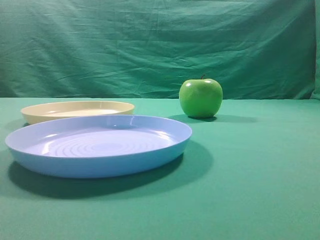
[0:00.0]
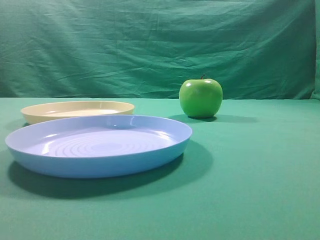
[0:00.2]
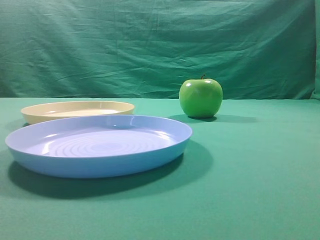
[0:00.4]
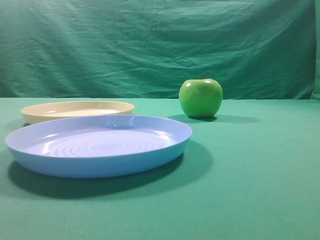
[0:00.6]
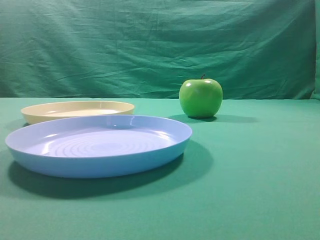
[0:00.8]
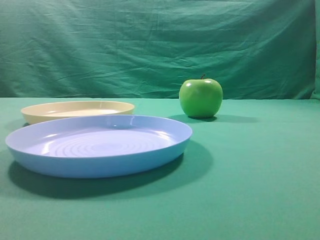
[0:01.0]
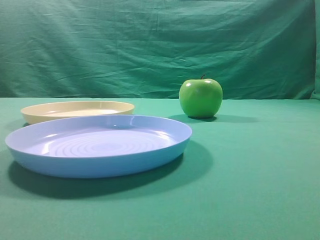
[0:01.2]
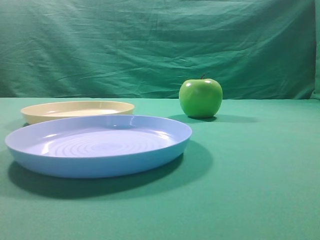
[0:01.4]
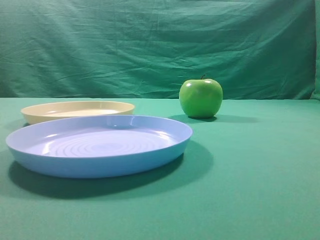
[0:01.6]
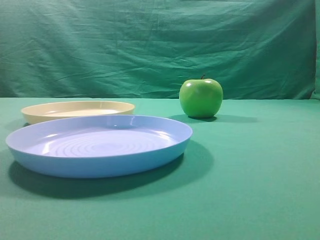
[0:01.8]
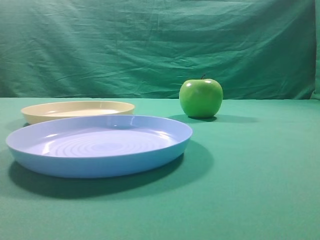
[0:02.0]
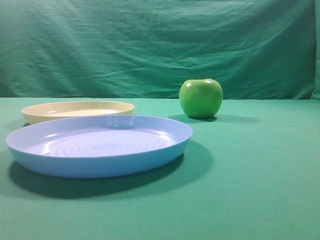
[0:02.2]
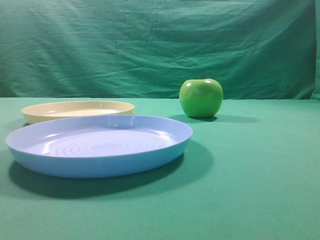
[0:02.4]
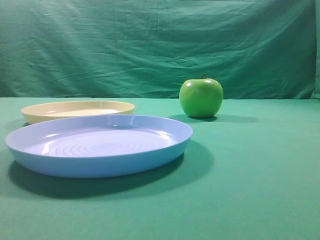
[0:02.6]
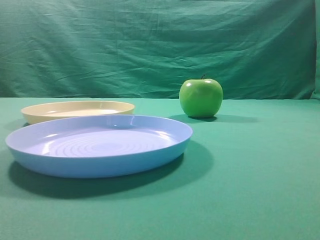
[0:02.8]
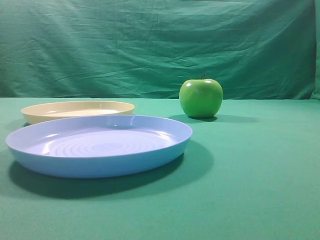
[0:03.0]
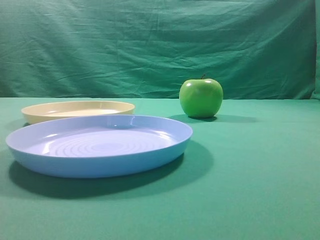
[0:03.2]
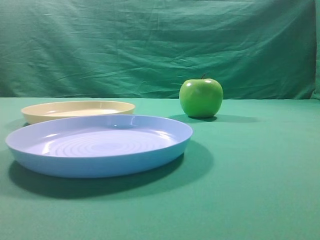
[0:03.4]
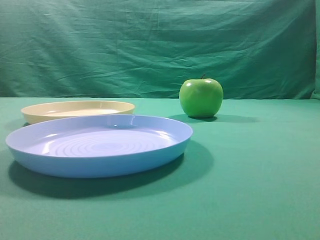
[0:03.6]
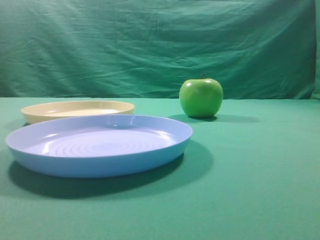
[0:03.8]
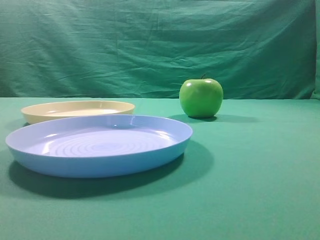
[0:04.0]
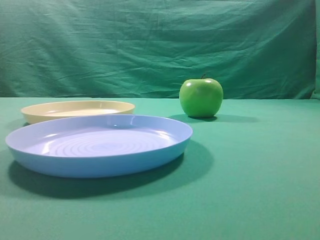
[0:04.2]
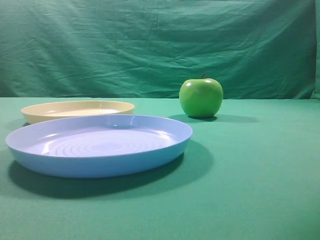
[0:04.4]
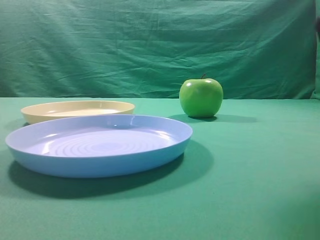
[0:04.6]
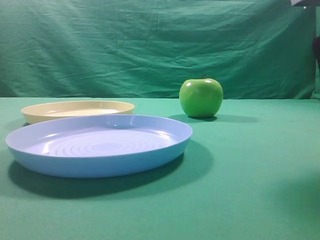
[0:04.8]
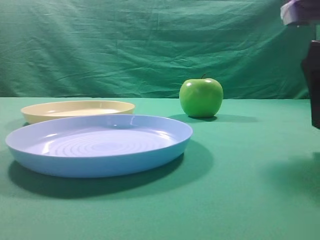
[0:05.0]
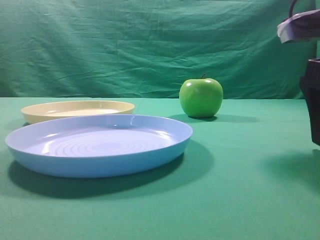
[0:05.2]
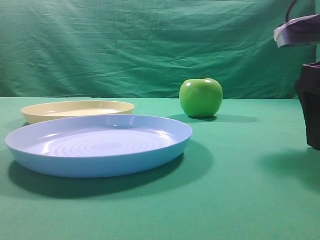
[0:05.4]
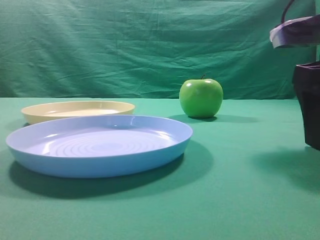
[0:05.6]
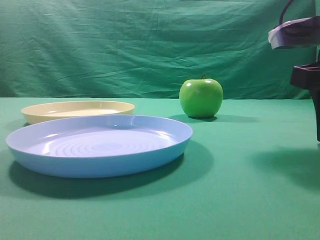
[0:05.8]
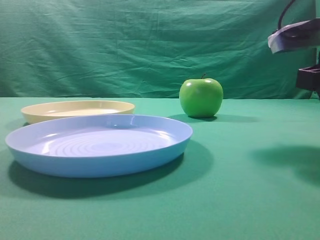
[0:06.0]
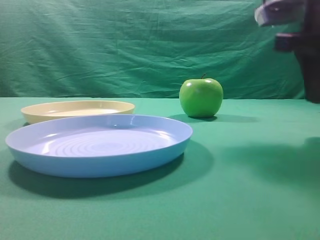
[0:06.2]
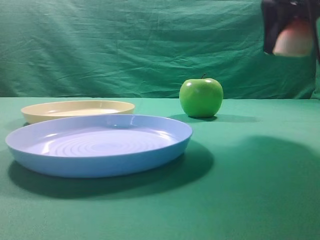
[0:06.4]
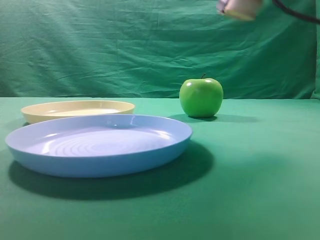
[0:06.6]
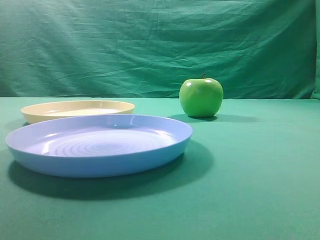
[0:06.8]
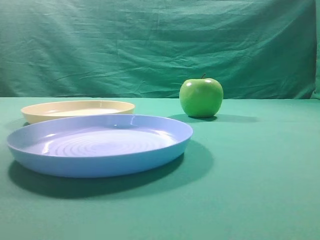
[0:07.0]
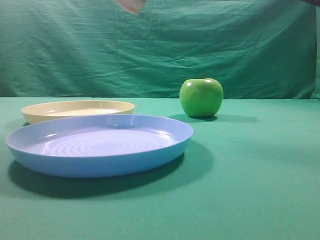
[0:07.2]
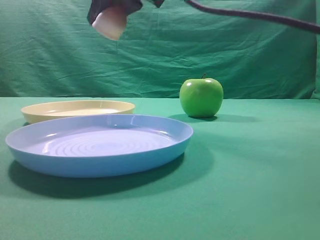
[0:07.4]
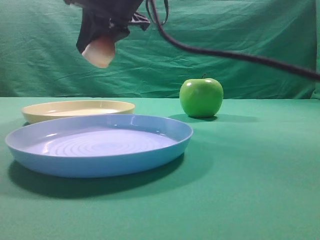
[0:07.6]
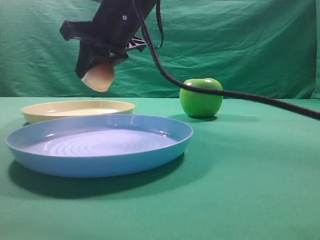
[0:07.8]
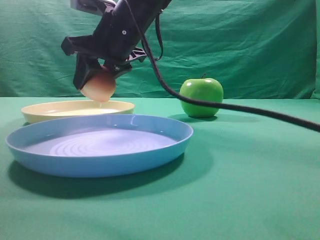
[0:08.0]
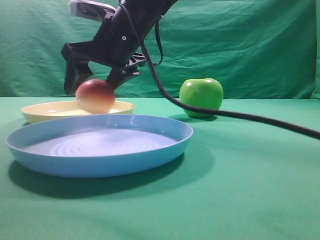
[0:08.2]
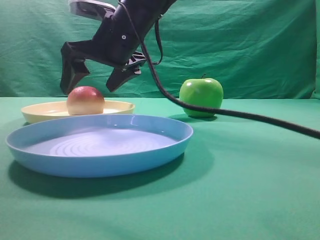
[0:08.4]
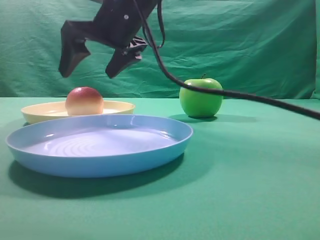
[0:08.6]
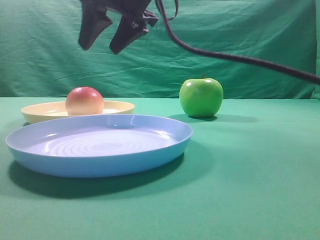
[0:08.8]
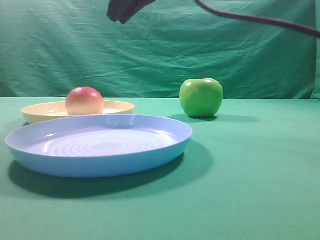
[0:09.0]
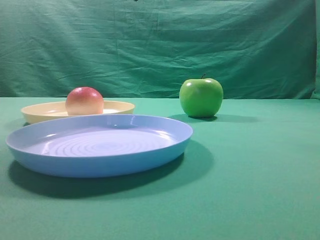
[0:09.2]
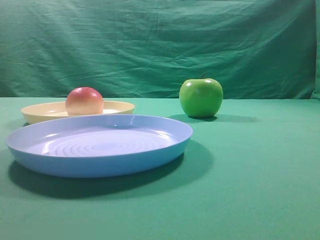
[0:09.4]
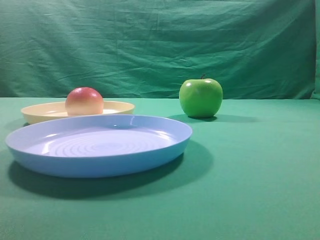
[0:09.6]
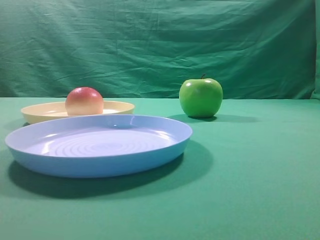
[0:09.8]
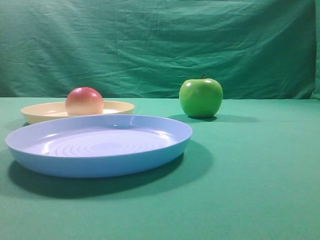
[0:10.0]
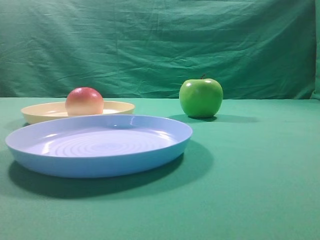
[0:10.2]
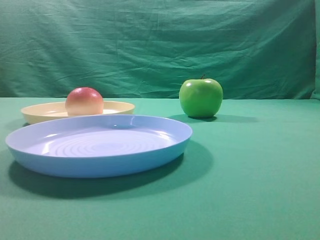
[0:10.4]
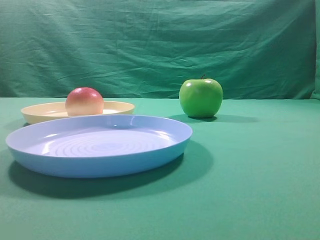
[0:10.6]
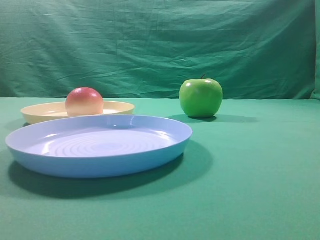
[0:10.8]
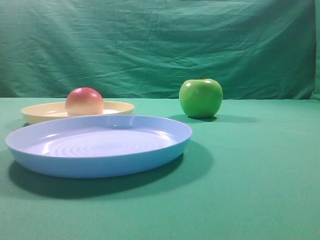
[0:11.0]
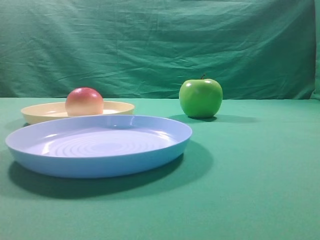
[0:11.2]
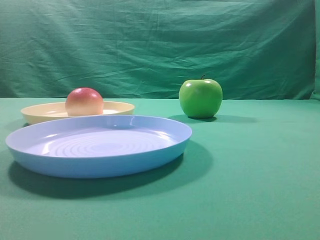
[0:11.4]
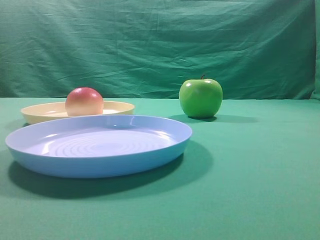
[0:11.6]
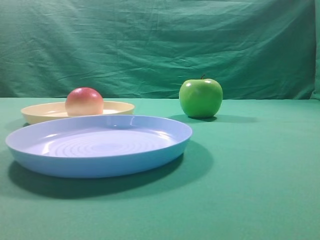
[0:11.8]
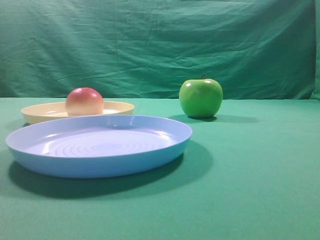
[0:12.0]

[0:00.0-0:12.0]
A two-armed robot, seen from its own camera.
Step, 0:06.4 to 0:08.6: Place the picked object on the yellow plate.

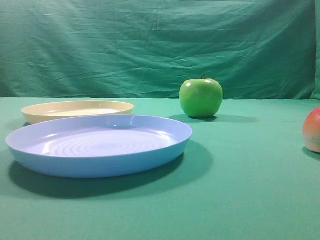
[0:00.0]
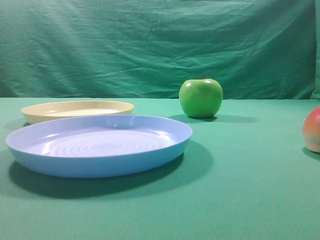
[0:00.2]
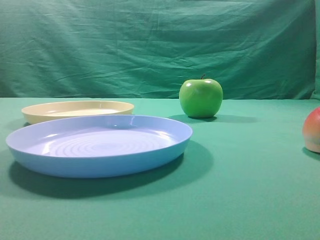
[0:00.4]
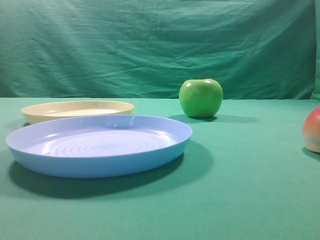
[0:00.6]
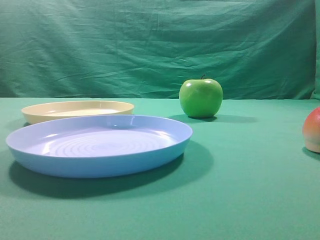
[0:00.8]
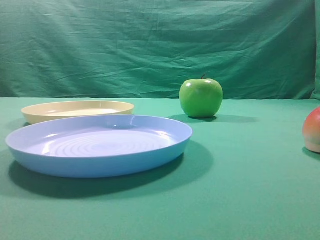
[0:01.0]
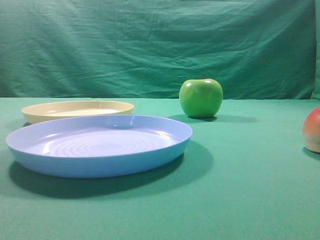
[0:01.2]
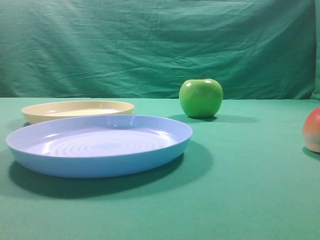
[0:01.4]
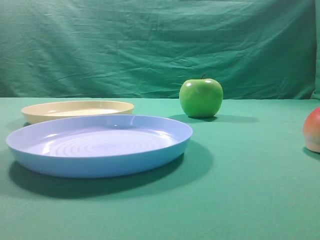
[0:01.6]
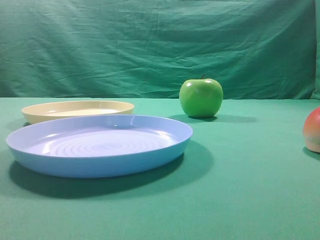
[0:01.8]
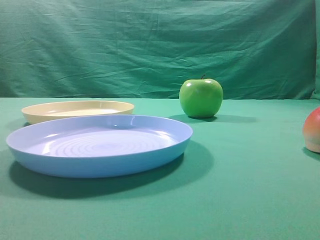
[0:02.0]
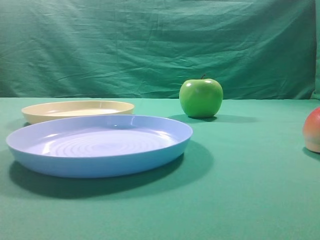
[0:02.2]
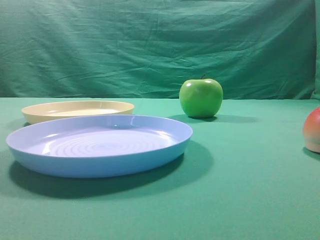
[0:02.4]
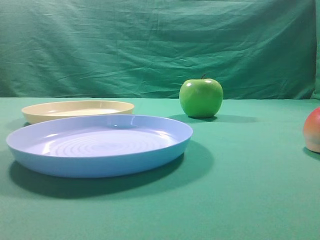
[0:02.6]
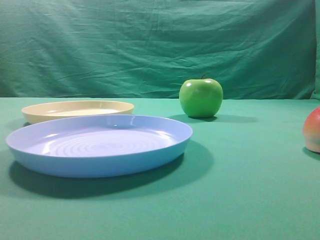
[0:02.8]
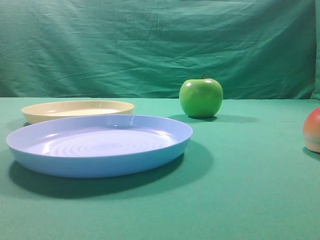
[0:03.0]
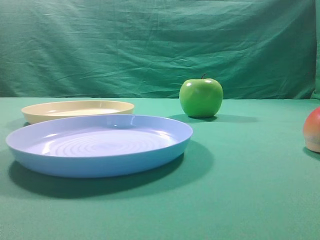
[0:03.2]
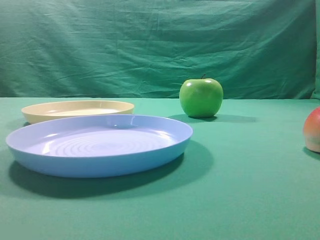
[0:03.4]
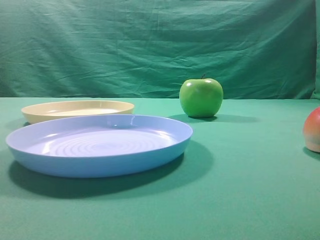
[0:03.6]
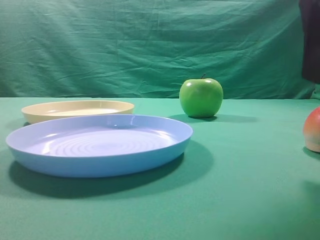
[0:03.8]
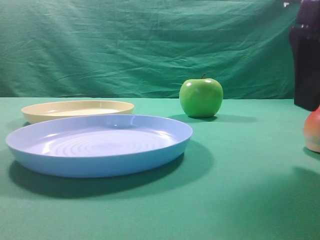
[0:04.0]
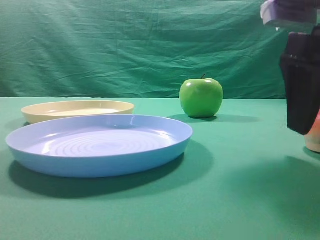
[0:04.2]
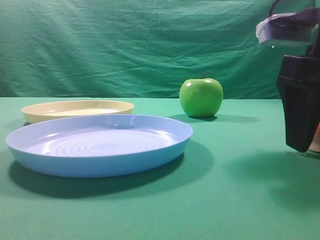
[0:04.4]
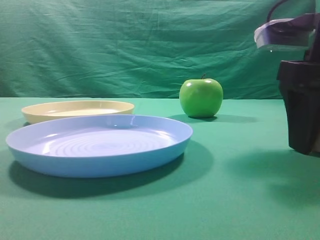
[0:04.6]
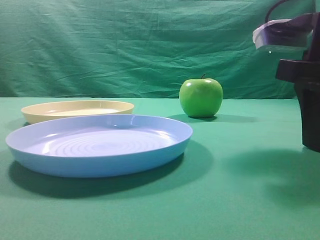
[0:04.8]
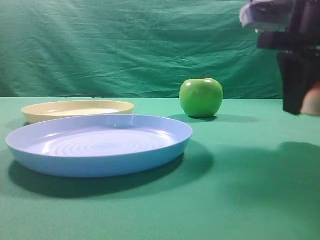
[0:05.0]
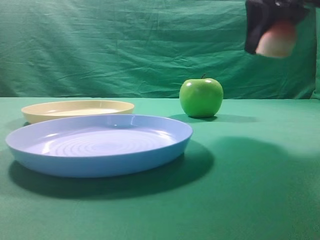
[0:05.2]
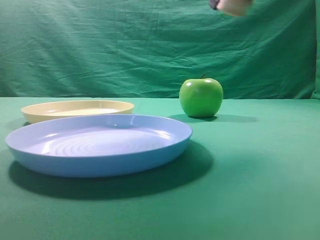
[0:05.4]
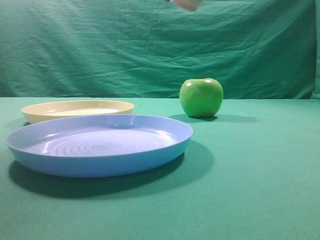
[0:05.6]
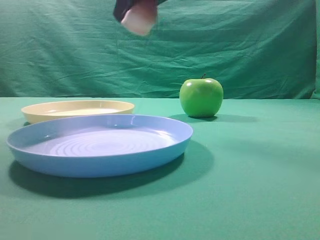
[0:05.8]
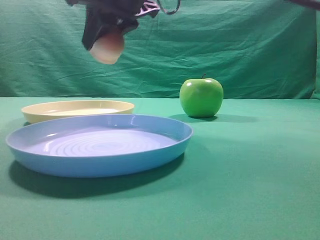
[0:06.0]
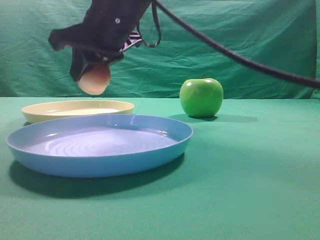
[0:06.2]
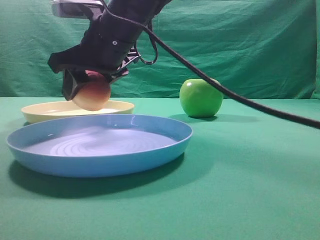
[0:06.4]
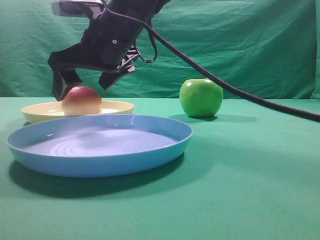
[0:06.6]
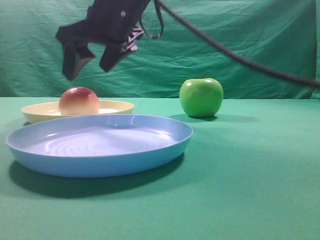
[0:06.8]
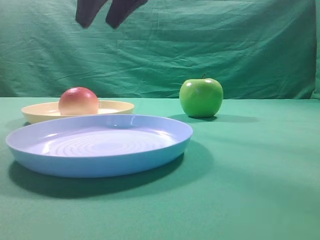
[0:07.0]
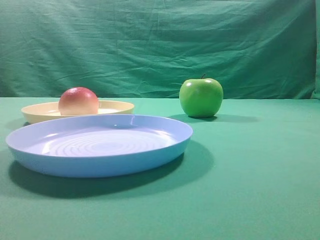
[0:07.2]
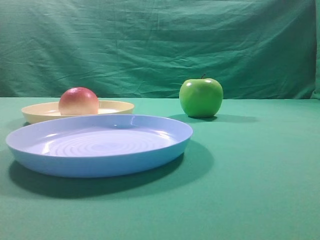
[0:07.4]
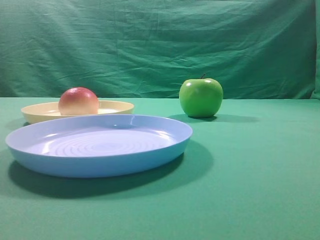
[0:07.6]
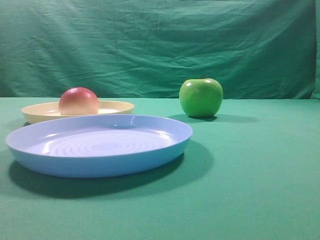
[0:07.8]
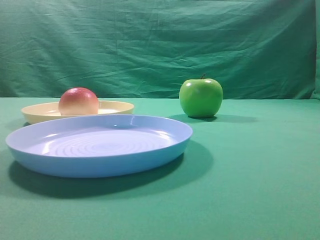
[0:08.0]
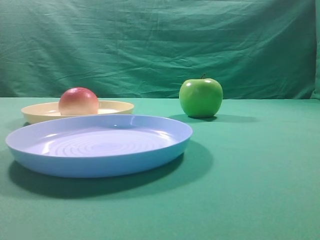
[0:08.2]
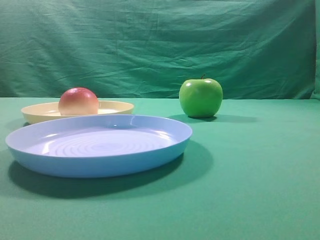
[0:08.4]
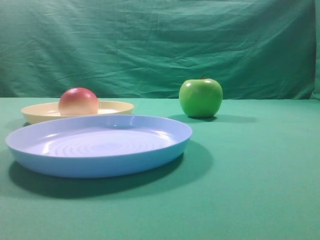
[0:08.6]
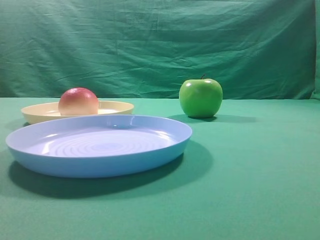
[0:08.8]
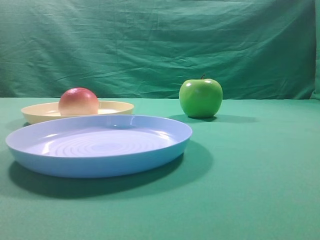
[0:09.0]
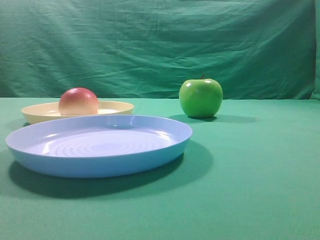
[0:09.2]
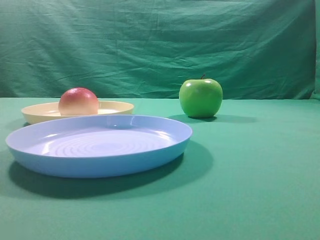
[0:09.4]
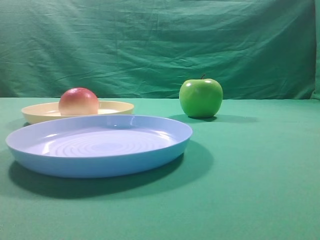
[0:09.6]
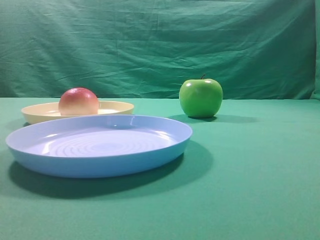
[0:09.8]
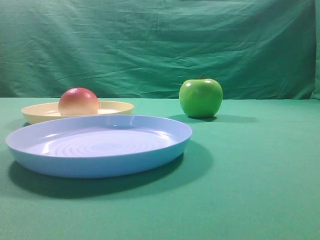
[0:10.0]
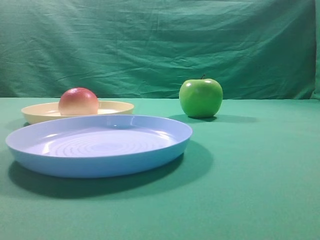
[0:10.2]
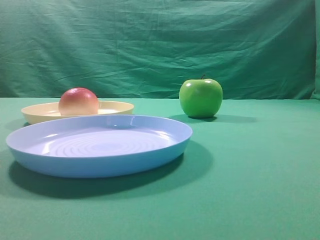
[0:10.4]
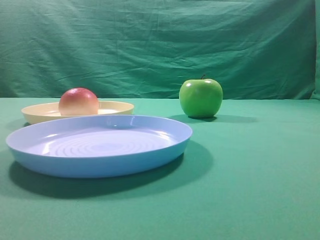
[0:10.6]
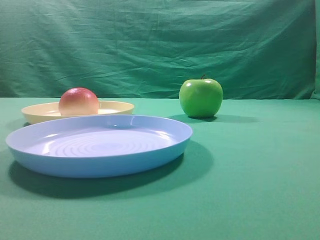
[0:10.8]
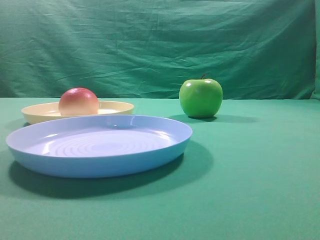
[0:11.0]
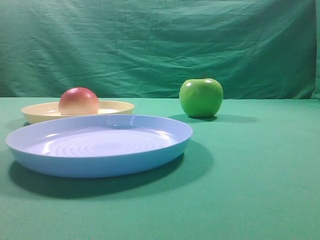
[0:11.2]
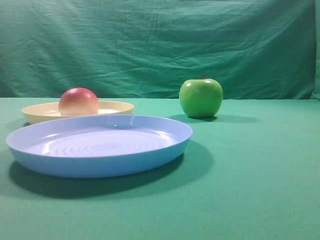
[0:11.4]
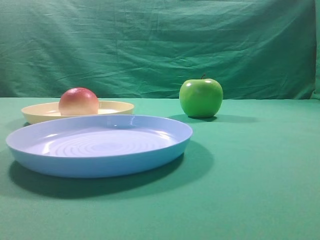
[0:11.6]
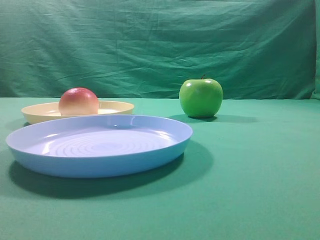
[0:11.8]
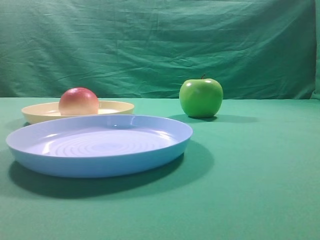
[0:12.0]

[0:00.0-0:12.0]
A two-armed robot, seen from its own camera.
Step, 0:05.2 to 0:06.8: Place the picked object on the yellow plate.
